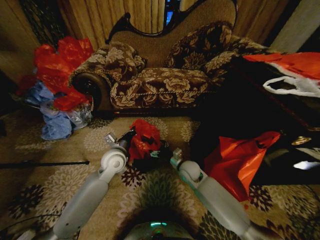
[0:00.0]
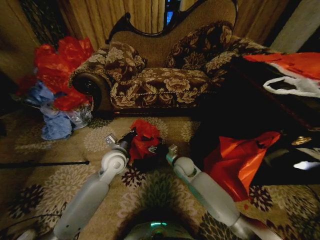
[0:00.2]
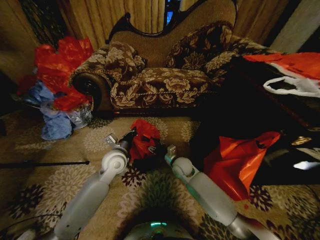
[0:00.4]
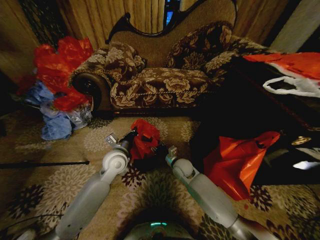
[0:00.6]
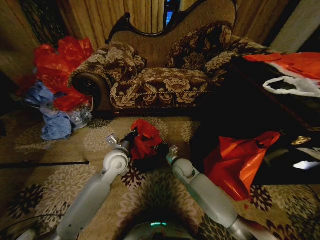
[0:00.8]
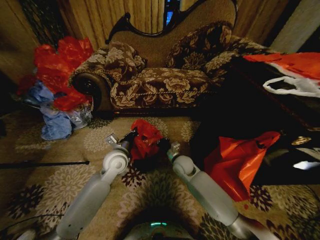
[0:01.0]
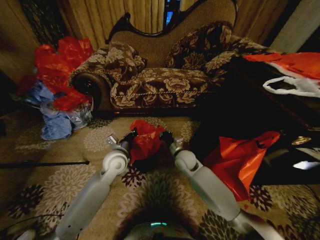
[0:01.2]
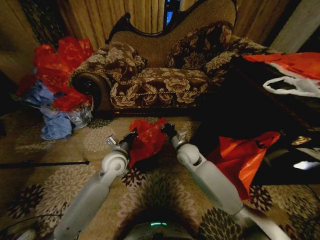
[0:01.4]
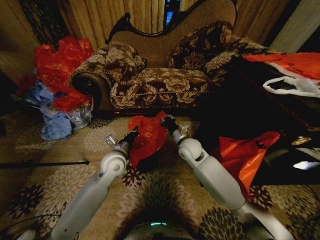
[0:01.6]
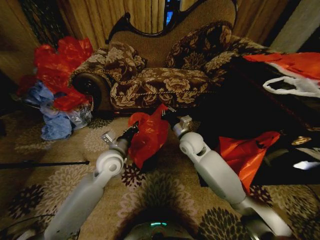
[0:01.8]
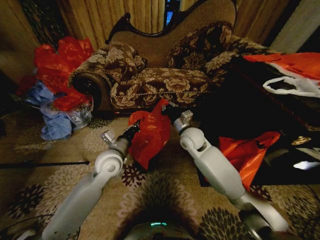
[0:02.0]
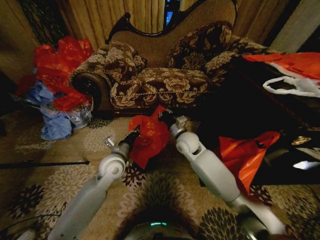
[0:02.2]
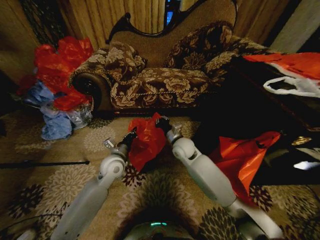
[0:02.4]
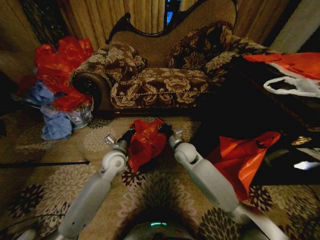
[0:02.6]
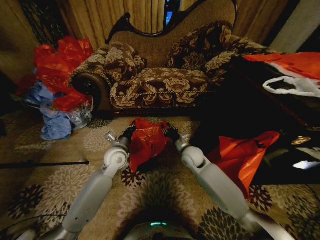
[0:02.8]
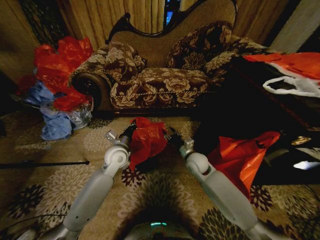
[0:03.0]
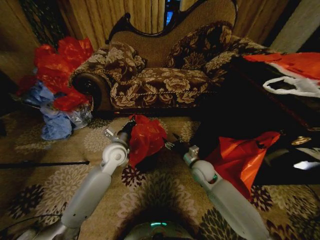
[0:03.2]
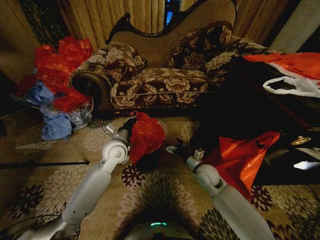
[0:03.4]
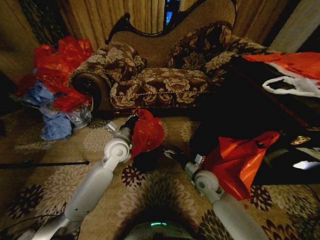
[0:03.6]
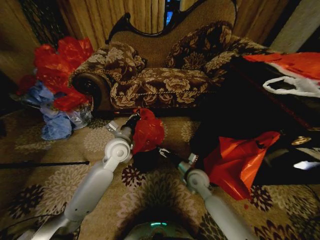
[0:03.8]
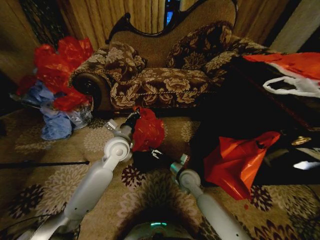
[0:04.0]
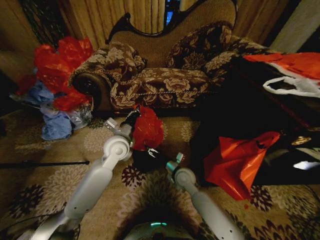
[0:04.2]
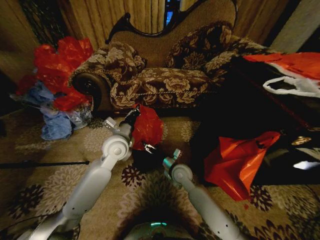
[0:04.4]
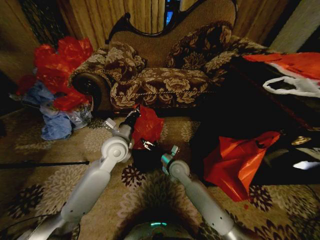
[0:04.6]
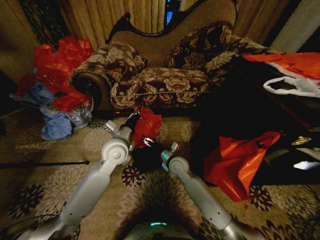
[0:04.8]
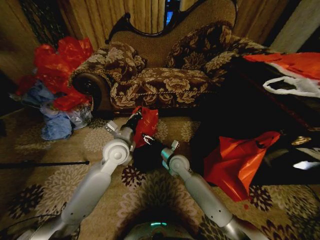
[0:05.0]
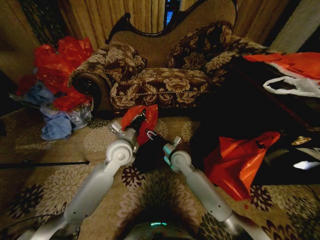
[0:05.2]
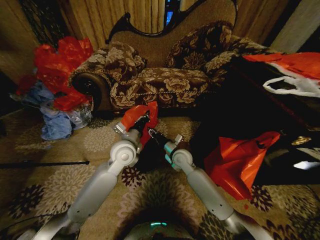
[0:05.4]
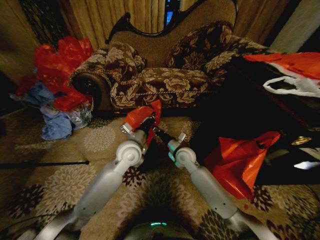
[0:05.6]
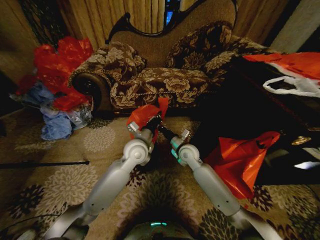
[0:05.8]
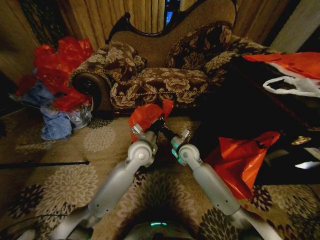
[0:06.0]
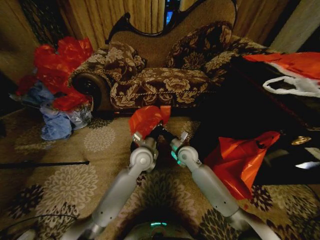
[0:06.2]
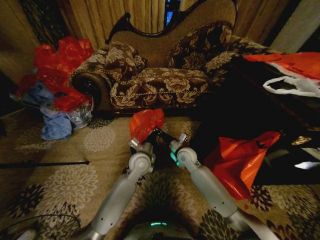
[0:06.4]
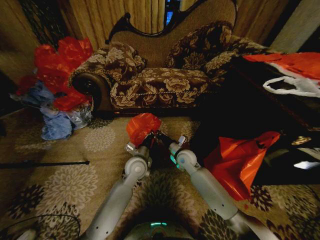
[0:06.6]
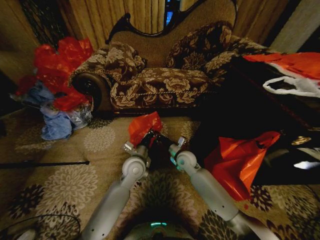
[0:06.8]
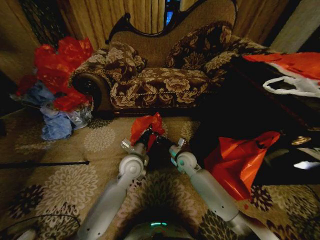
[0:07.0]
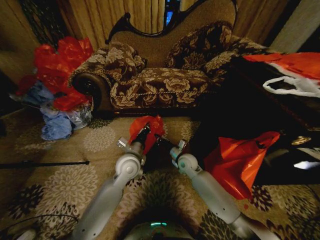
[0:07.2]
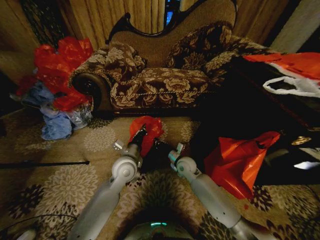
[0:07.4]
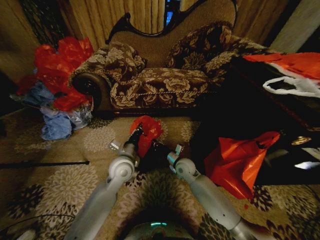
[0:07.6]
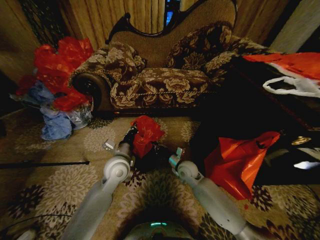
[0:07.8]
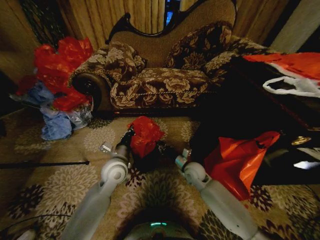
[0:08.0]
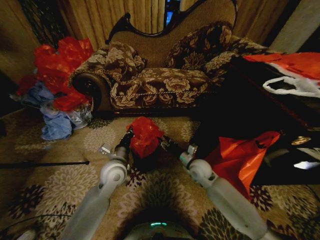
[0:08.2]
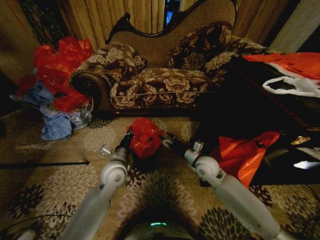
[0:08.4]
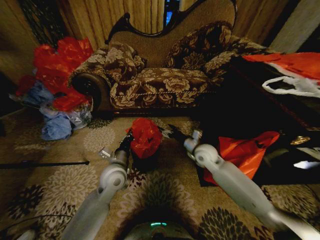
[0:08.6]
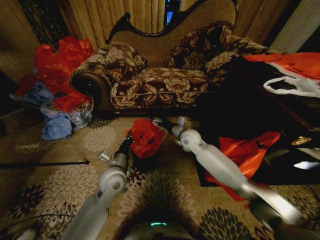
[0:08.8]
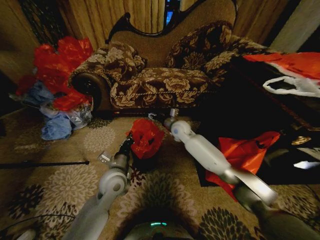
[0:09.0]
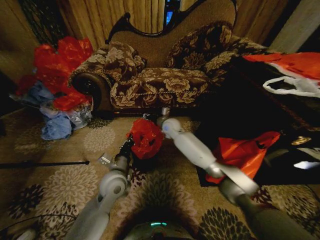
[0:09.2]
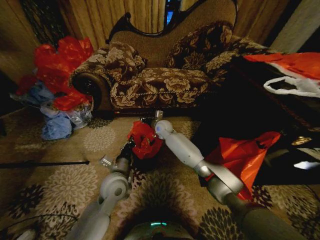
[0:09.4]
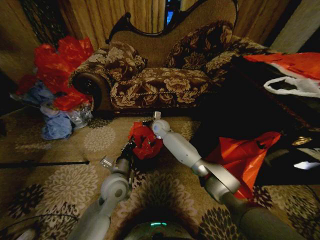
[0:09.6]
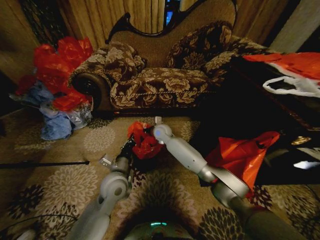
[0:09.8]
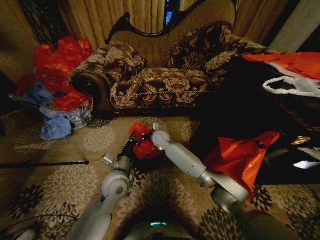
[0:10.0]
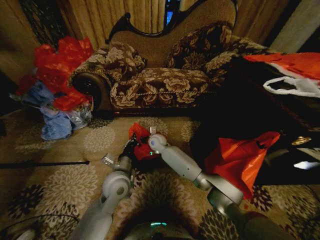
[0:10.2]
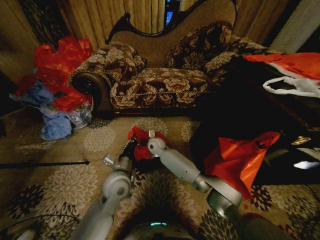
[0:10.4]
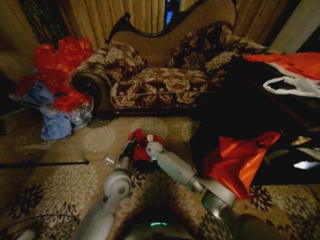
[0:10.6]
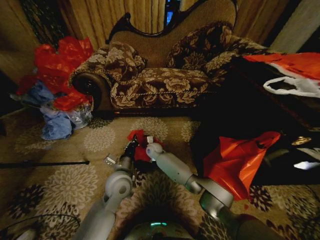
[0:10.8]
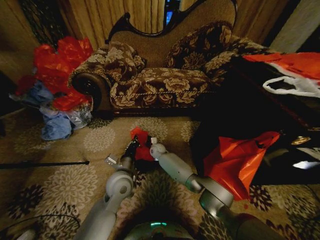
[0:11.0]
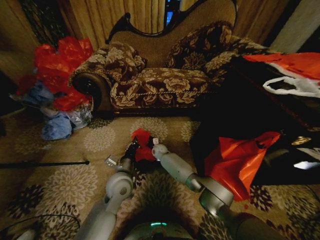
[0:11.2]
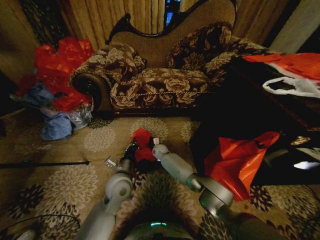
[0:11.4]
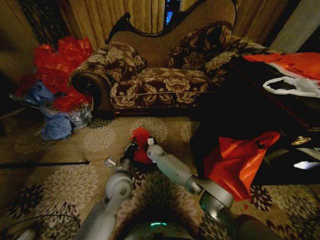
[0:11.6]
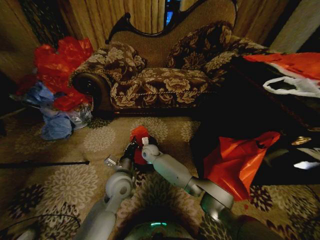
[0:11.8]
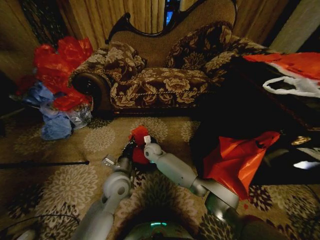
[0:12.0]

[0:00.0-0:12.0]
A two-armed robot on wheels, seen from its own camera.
Task of the whole recording: Place a garbage bag over the trash bin.
0.0 to 1.6 s: The right gripper is displaced upward by about 10 cm, and closes its fingers.
1.6 to 3.0 s: The right gripper moves downward, approximately 10 cm, and opens up.
3.0 to 4.4 s: The right gripper shifts about 10 cm to the left, and opens up. Meanwhile the left gripper travels upward by some 5 cm.
4.4 to 6.0 s: The right gripper heads forward and upward, covering about 10 cm, and closes its fingers, while the left gripper heads to the right, covering some 10 cm.
6.0 to 7.6 s: The right gripper goes roughly 5 cm downward; the left gripper travels to the left by about 5 cm.
7.6 to 9.0 s: The left gripper changes place by about 5 cm, while the right gripper shifts approximately 20 cm upward and forward, and opens up.
9.0 to 10.4 s: The right gripper goes roughly 15 cm to the left and downward, and closes its fingers.
10.4 to 12.0 s: The right gripper moves roughly 10 cm downward and comes back, and opens up.

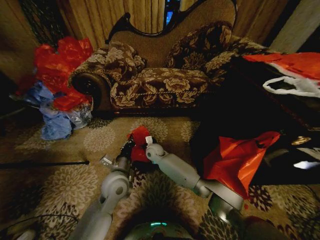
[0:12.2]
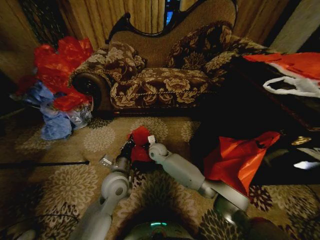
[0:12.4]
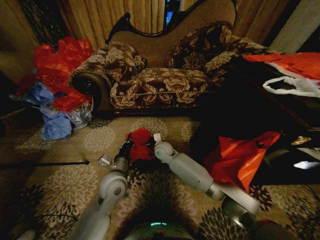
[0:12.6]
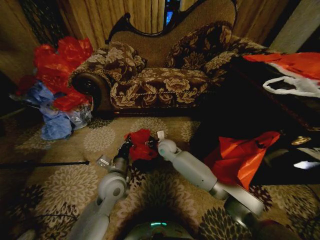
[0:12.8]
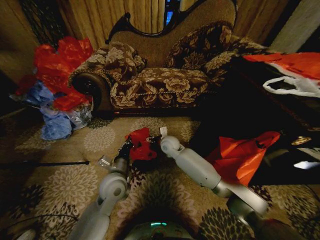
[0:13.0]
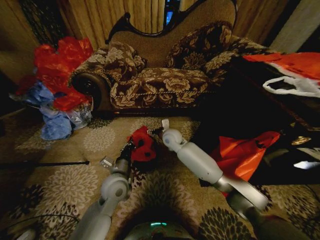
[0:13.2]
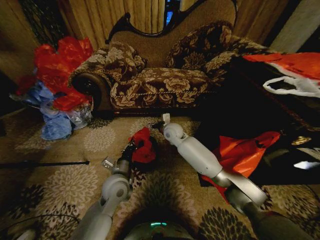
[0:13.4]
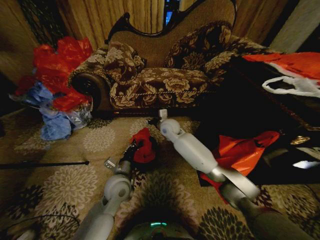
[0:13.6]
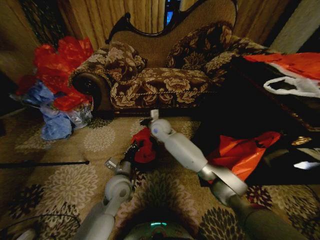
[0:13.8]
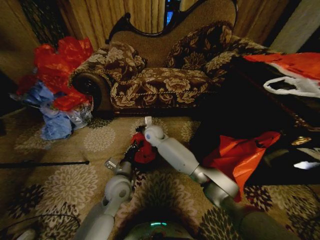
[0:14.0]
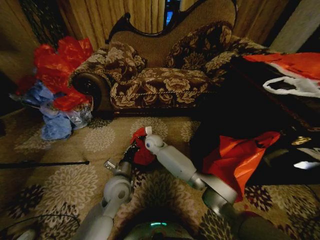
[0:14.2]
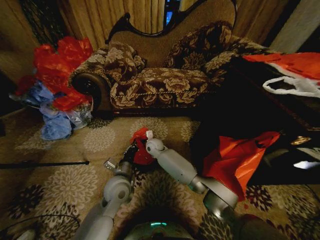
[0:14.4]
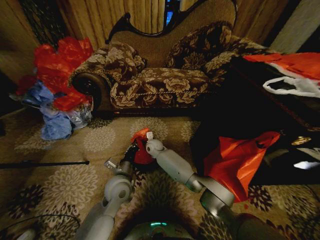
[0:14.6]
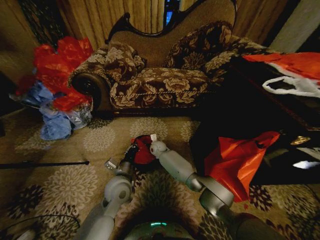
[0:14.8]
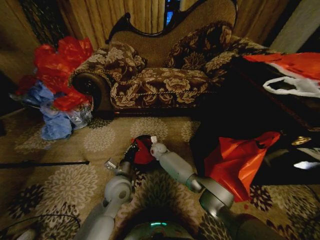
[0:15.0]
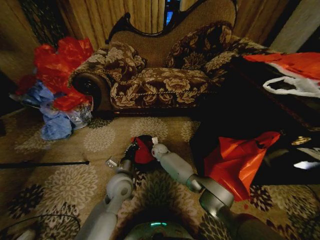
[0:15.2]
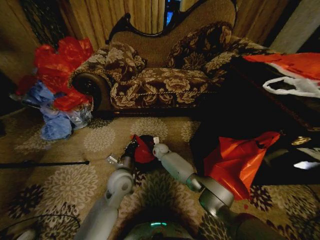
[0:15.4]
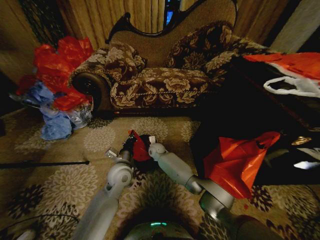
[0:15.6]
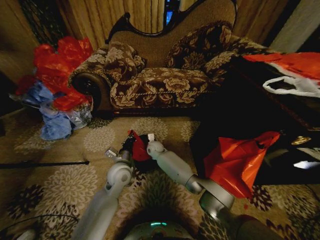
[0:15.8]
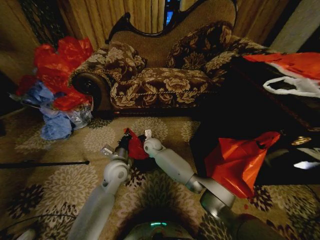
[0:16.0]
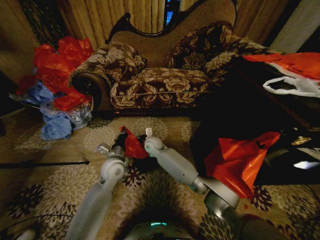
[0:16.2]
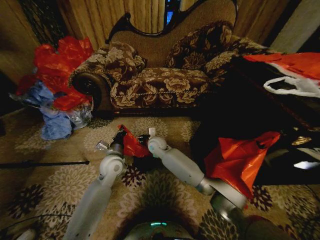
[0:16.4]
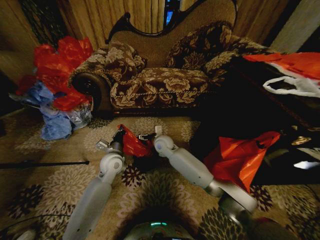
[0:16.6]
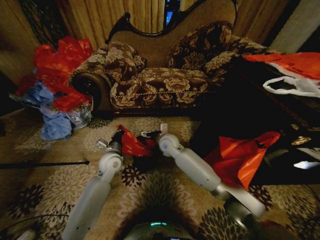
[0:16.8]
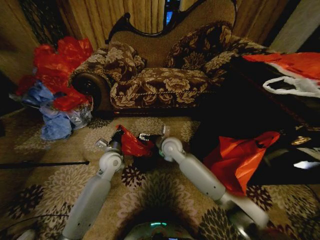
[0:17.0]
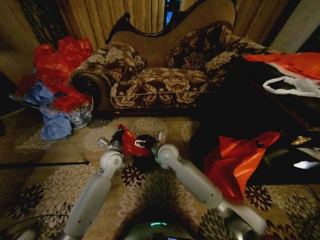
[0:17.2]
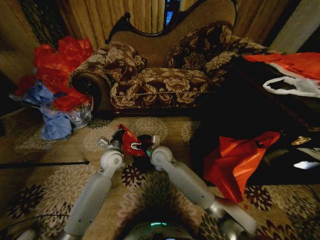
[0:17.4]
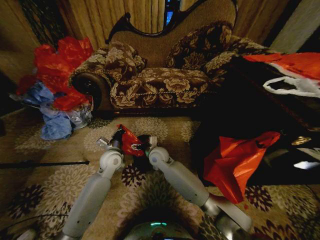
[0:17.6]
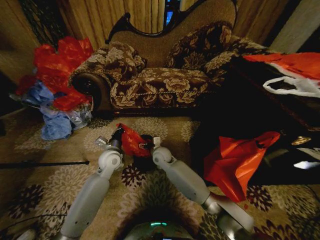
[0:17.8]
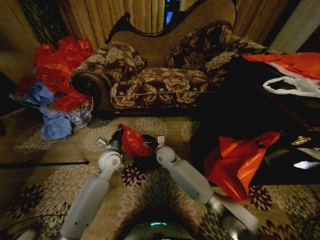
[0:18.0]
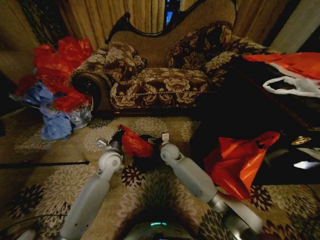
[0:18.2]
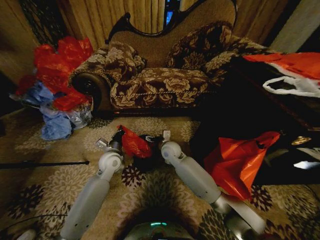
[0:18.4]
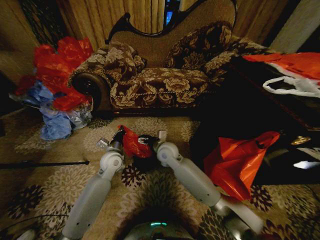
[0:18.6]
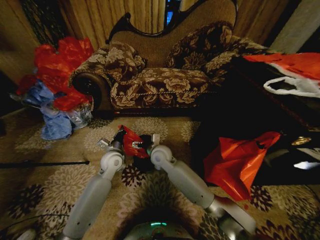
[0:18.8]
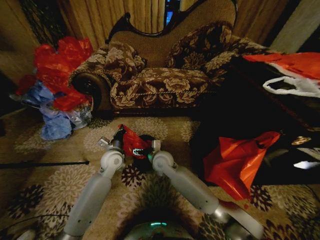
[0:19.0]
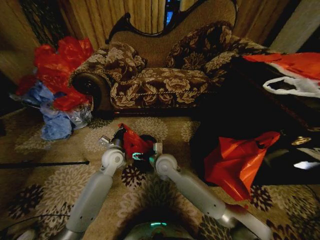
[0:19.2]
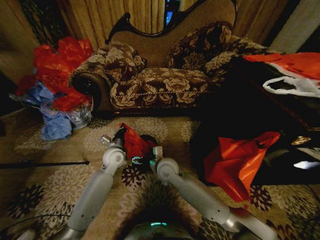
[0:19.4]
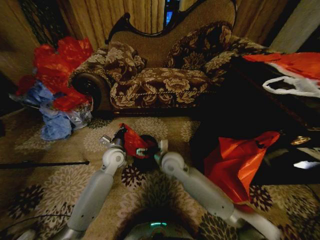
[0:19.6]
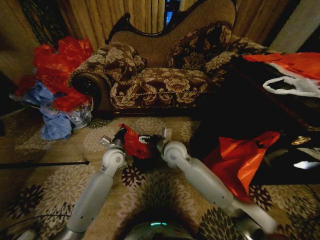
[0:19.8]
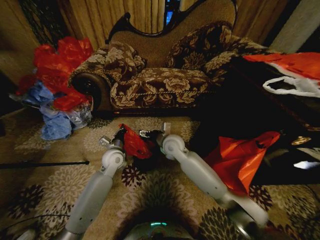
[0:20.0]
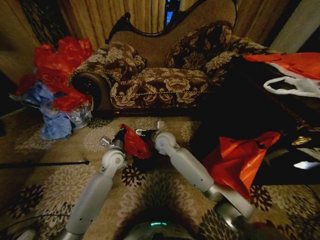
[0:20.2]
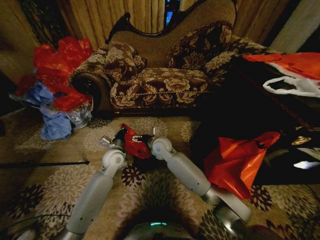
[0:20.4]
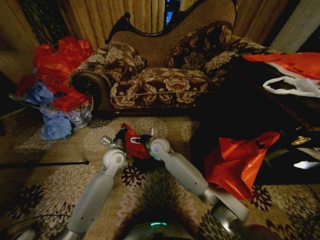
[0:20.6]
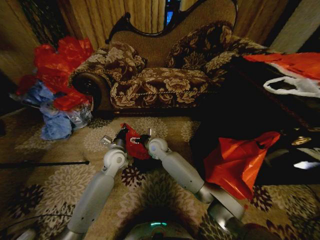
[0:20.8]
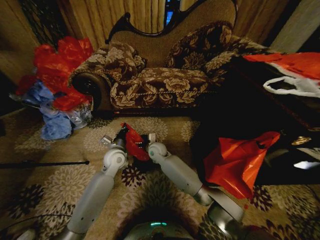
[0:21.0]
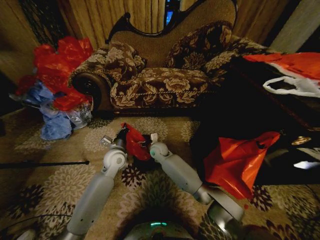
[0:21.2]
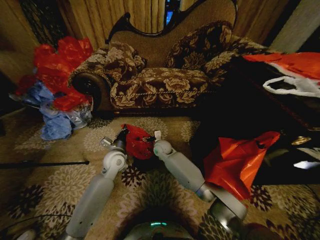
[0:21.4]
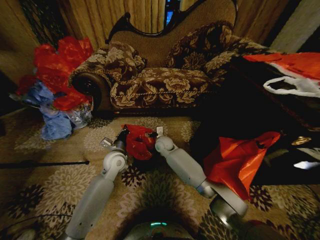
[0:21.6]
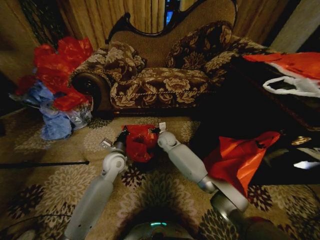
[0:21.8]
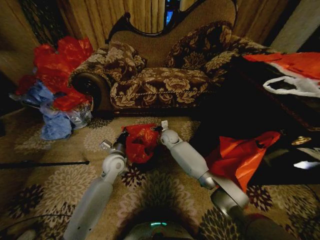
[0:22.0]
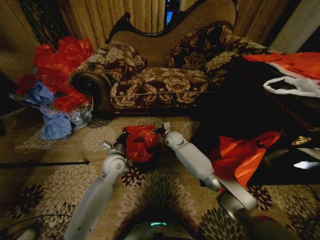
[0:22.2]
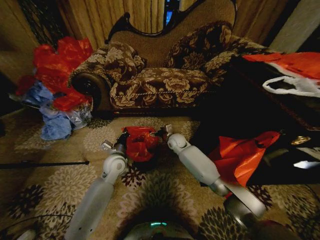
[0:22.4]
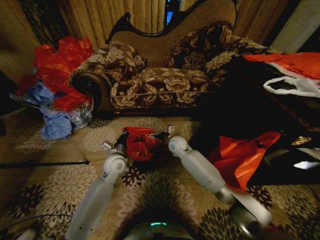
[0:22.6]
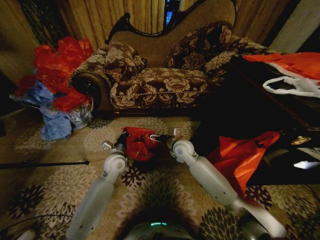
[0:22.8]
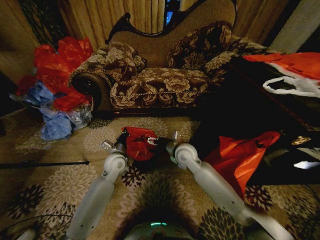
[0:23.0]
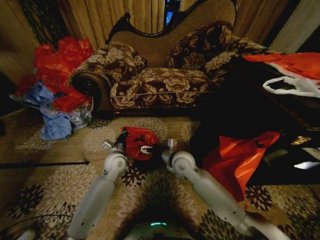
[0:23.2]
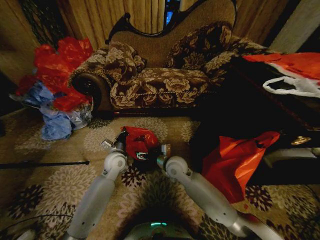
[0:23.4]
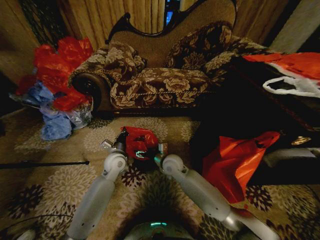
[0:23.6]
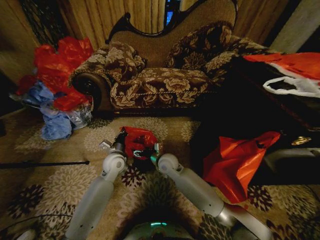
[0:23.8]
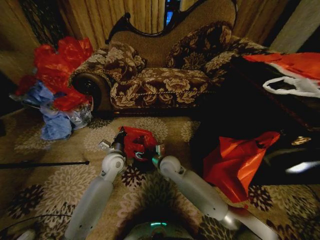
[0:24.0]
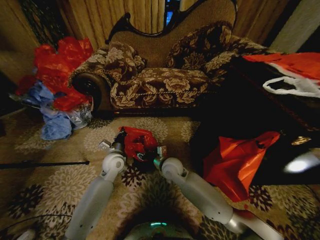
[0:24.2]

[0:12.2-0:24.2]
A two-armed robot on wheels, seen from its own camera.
Task of the whole recording: Place a garbage bag over the trash bin.
12.2 to 13.8 s: The right gripper travels upward by about 15 cm, and closes its fingers.
13.8 to 15.2 s: The right gripper heads downward, covering roughly 20 cm.
15.2 to 16.6 s: The right gripper shifts some 15 cm upward and backward, and opens; the left gripper shifts some 10 cm forward and to the left.
16.6 to 18.2 s: The right gripper ends up approximately 5 cm from where it was.
18.2 to 19.8 s: The right gripper heads upward and backward, covering about 10 cm.
19.8 to 21.2 s: The right gripper goes some 15 cm downward, forward and to the left.
21.2 to 22.6 s: The right gripper shifts approximately 10 cm to the right.
22.6 to 24.2 s: The right gripper goes about 10 cm backward, and closes up.
